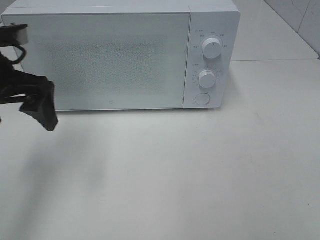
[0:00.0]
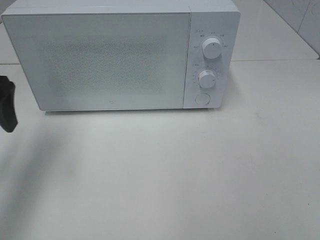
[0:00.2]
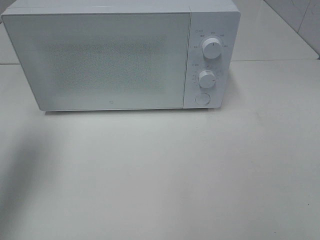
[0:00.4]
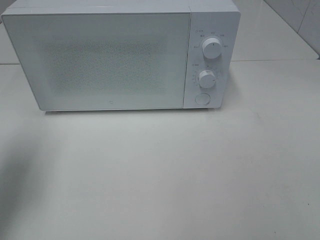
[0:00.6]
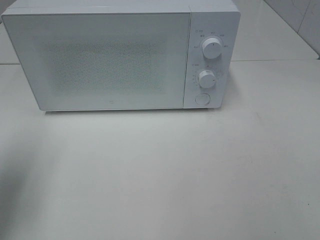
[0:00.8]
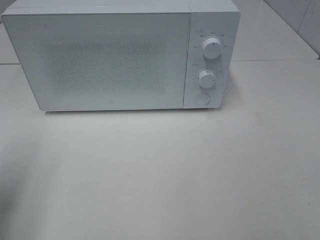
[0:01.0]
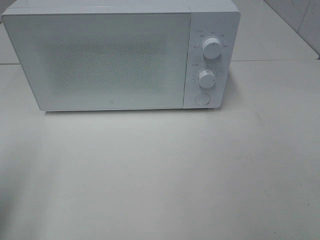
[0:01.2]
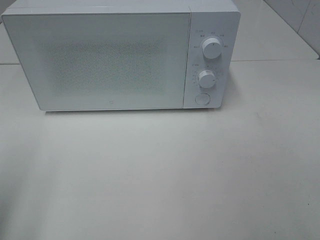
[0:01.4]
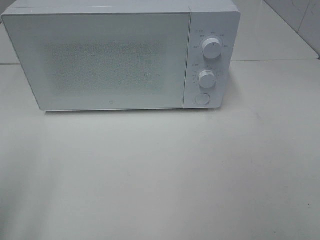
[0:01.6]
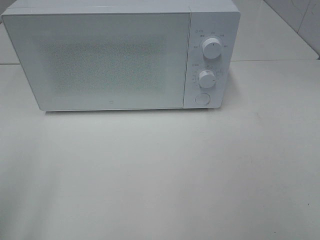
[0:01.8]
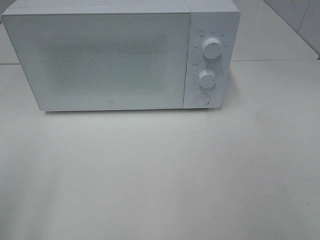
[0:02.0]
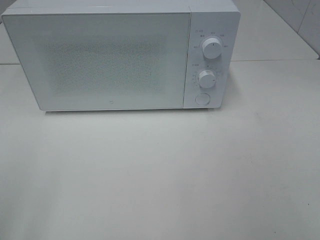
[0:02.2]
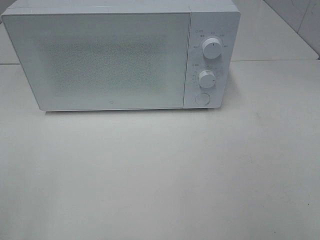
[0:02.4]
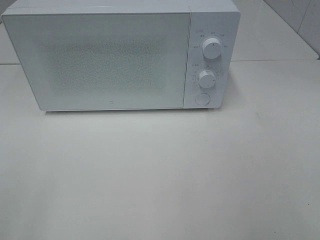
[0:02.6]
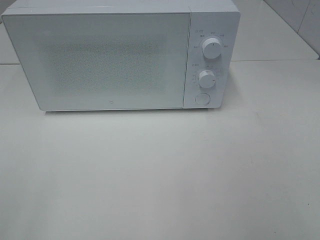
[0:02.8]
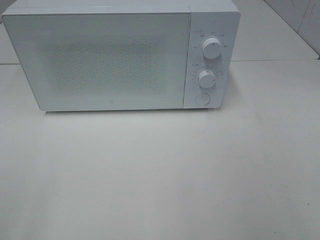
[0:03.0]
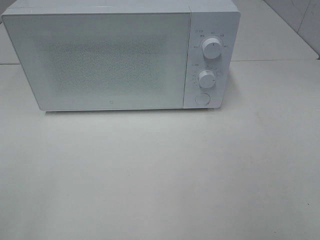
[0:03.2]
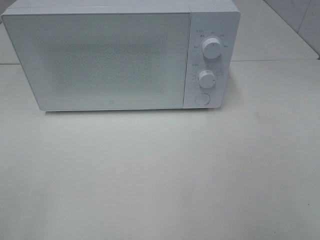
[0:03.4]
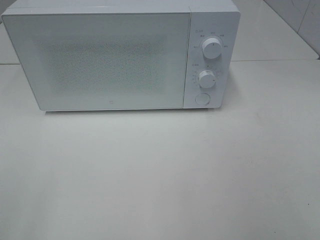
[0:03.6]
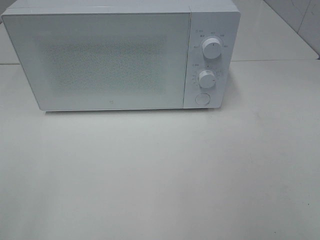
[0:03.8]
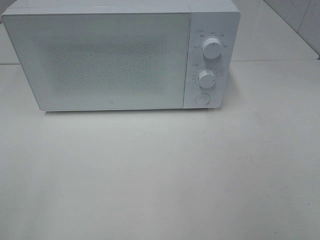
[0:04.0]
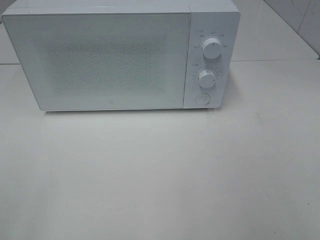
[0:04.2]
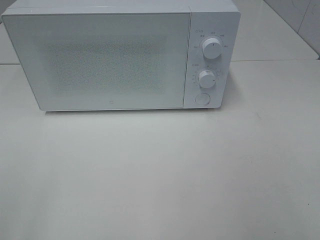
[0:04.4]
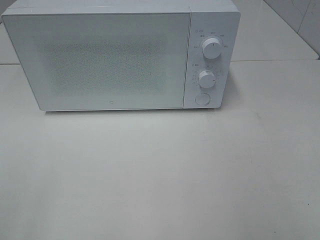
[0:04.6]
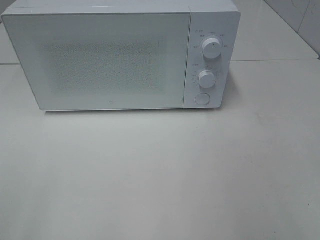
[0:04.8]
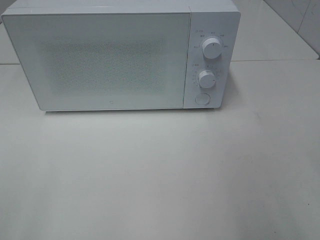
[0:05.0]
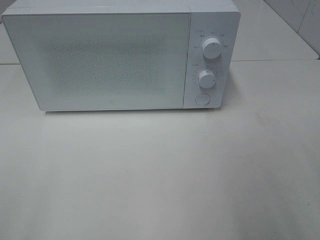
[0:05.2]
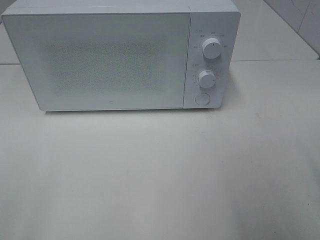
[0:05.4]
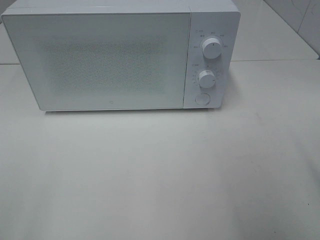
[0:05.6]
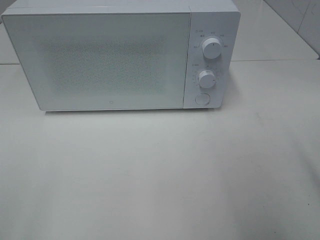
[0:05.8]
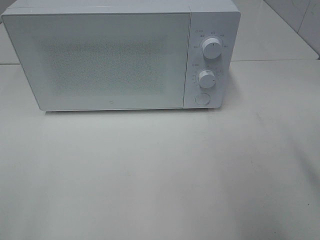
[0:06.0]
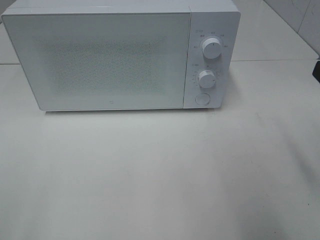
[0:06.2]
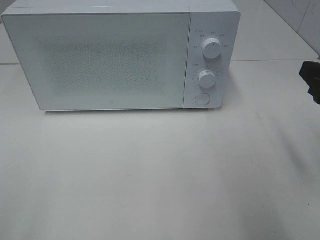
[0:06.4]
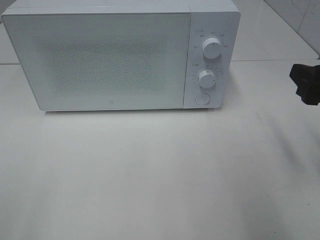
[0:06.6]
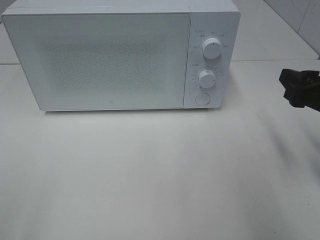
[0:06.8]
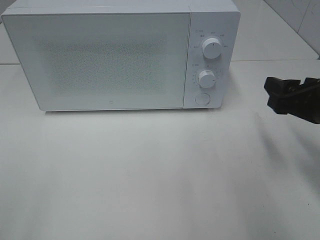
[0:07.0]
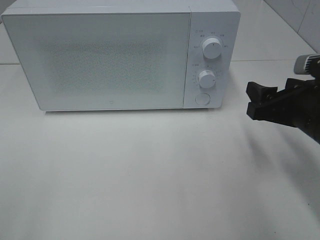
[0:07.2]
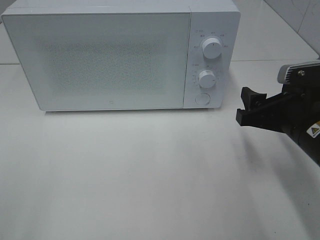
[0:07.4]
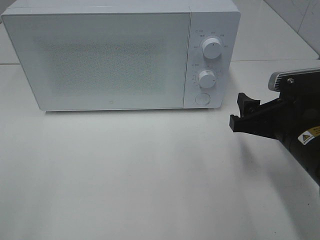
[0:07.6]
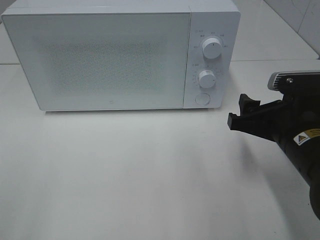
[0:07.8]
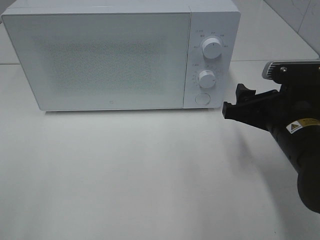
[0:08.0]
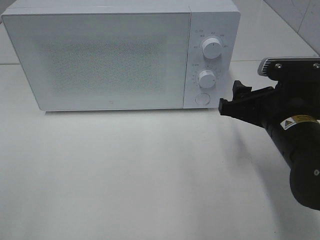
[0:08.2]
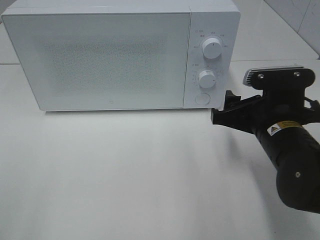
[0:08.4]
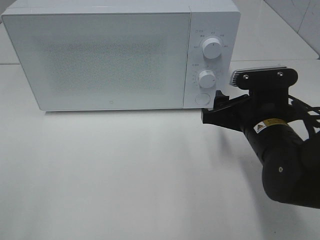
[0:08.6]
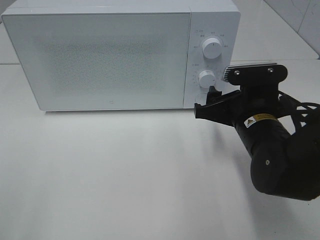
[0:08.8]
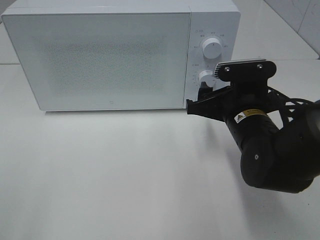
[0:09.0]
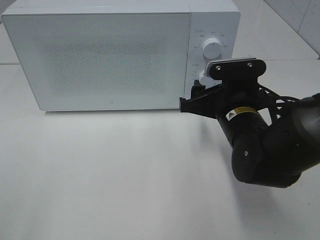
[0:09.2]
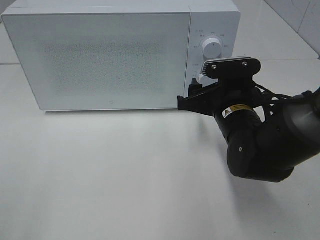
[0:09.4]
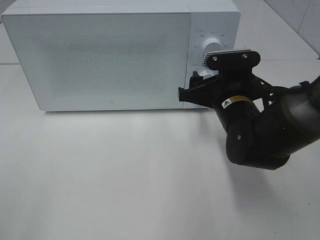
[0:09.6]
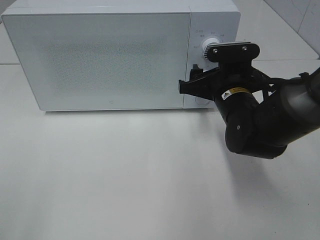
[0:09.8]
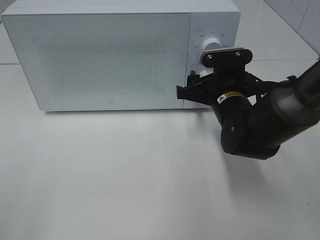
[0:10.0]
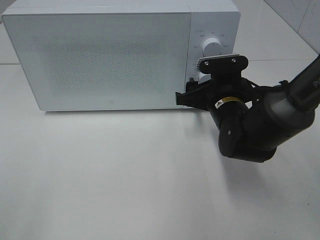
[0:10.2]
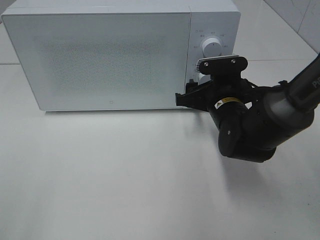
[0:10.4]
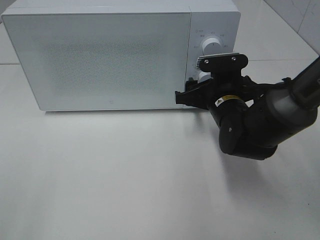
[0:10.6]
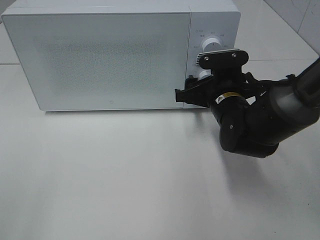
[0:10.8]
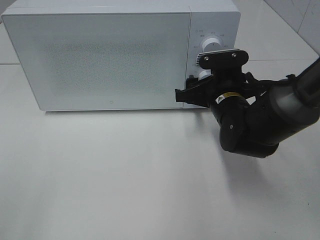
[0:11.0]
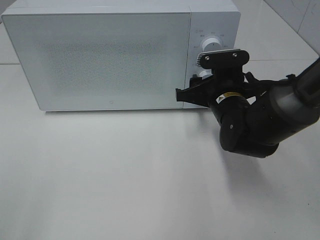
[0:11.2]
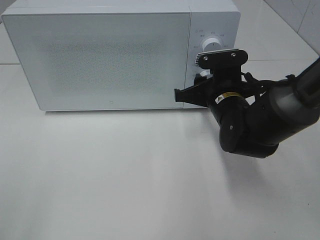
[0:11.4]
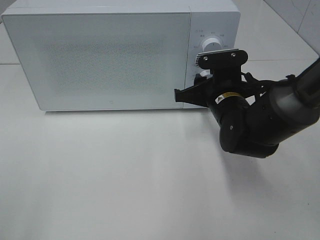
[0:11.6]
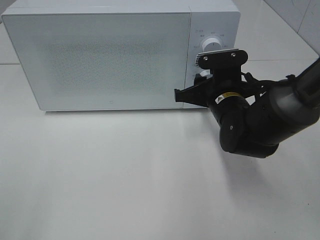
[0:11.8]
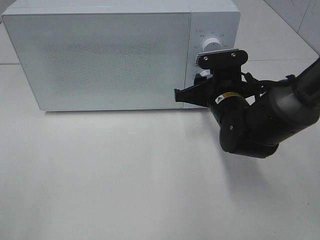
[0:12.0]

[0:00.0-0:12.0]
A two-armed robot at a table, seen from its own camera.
Task of the whole recording: Heat the burger.
0:00.0 to 0:01.6: The left gripper travels backward and to the left by some 20 cm.
0:03.0 to 0:04.4: Neither gripper changes place.
0:04.4 to 0:06.0: The right gripper goes about 15 cm forward.
0:06.0 to 0:07.6: The right gripper moves downward, to the left and forward, about 15 cm.
0:07.6 to 0:09.0: The right gripper heads to the left and forward, covering some 10 cm.
0:09.0 to 0:10.4: The right gripper heads forward, covering roughly 5 cm.
0:10.4 to 0:12.0: The right gripper closes its fingers.

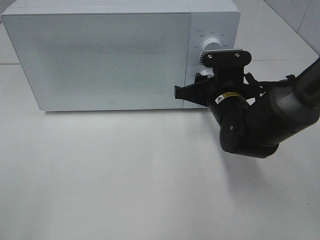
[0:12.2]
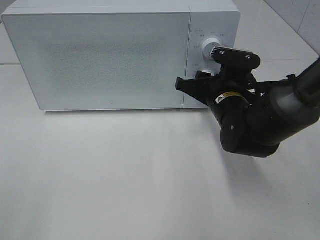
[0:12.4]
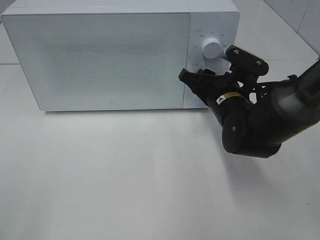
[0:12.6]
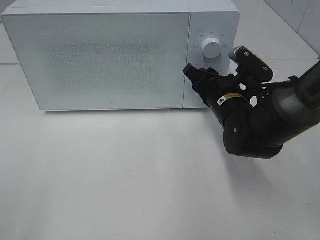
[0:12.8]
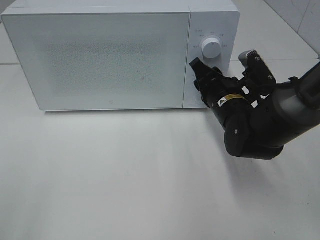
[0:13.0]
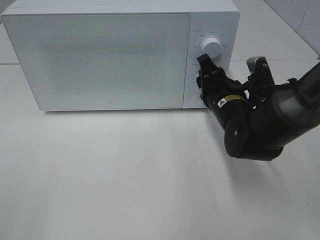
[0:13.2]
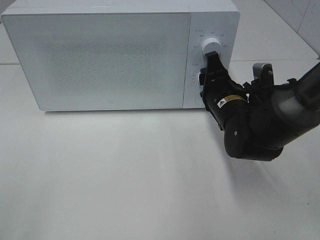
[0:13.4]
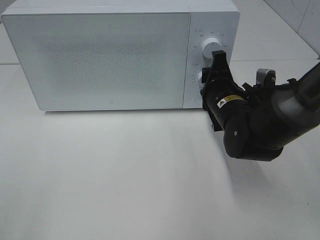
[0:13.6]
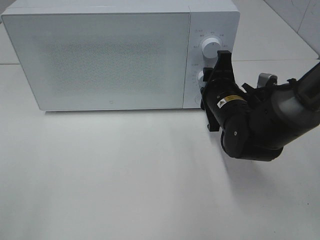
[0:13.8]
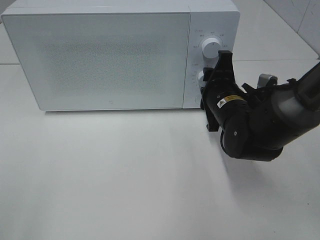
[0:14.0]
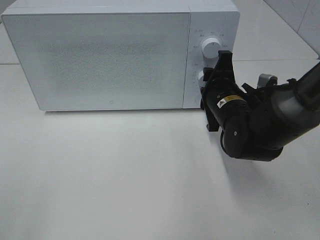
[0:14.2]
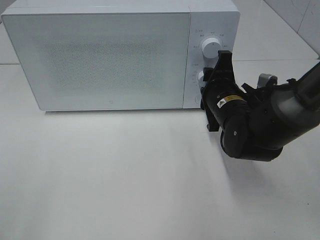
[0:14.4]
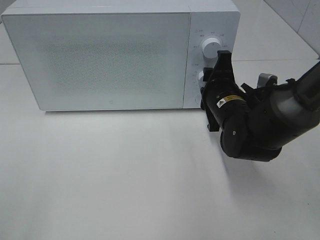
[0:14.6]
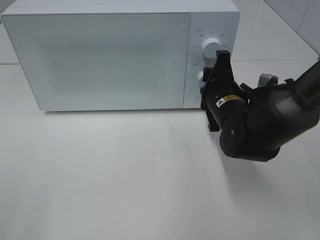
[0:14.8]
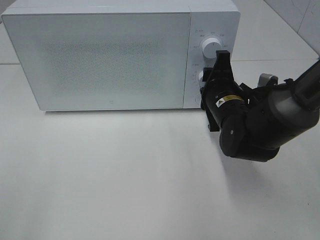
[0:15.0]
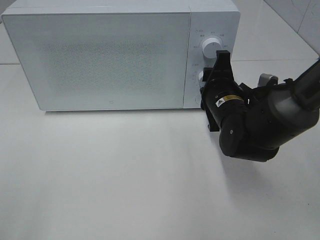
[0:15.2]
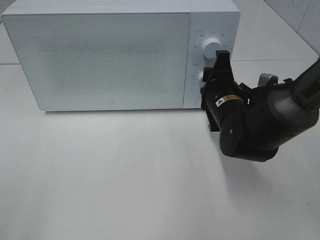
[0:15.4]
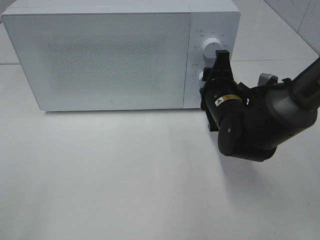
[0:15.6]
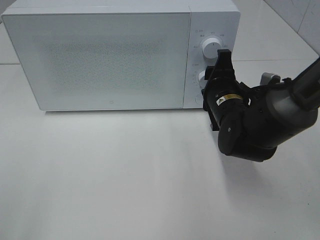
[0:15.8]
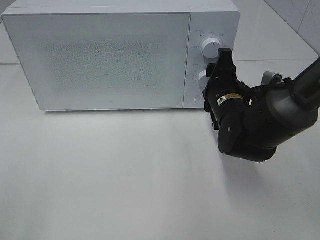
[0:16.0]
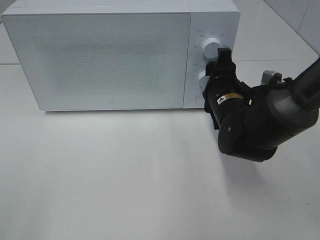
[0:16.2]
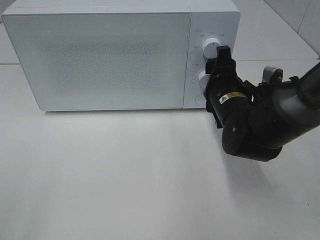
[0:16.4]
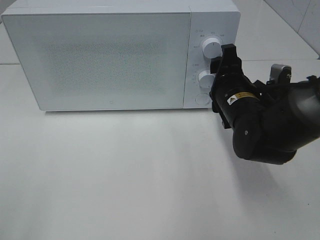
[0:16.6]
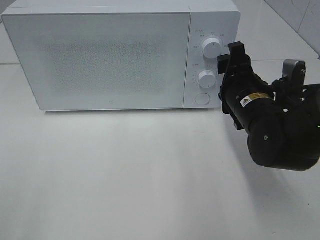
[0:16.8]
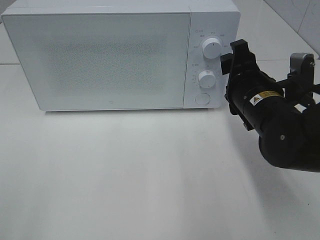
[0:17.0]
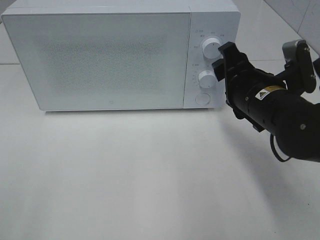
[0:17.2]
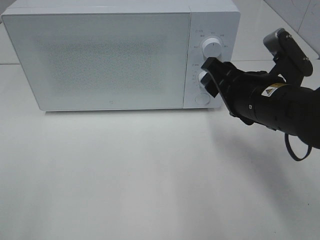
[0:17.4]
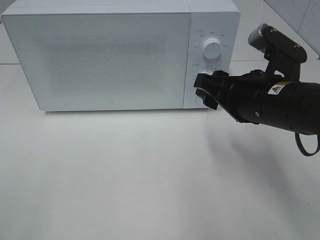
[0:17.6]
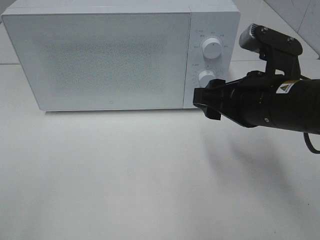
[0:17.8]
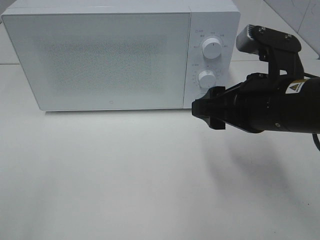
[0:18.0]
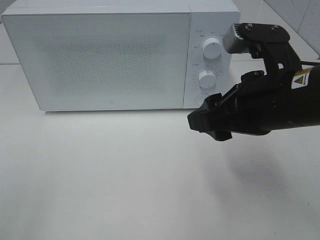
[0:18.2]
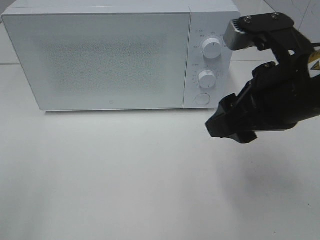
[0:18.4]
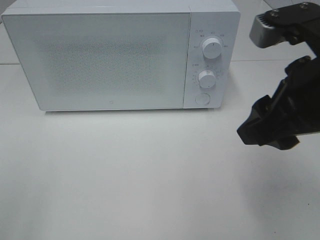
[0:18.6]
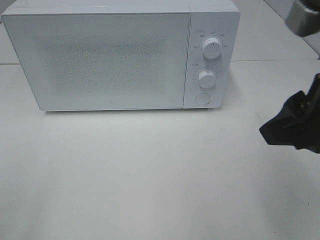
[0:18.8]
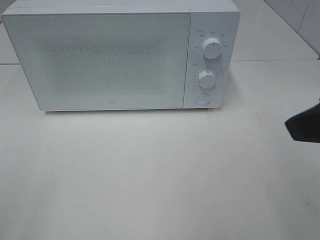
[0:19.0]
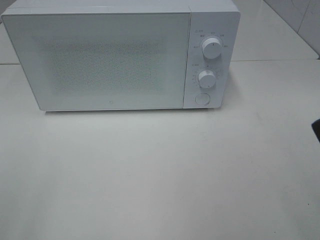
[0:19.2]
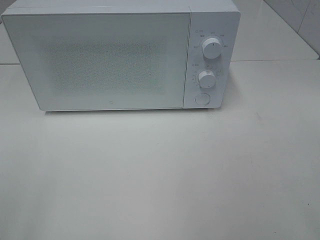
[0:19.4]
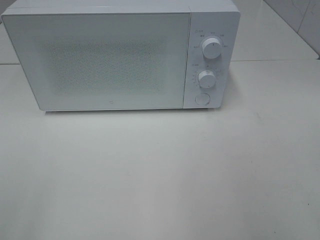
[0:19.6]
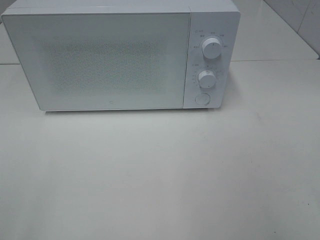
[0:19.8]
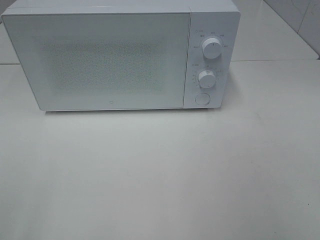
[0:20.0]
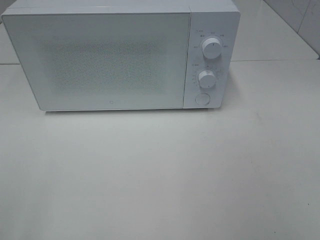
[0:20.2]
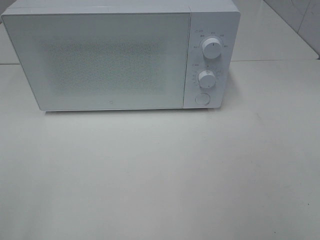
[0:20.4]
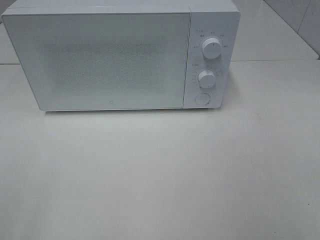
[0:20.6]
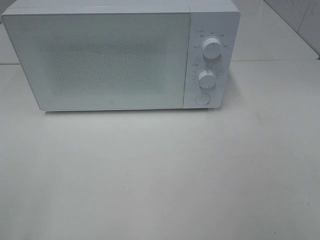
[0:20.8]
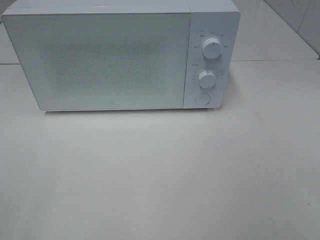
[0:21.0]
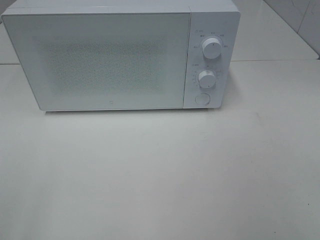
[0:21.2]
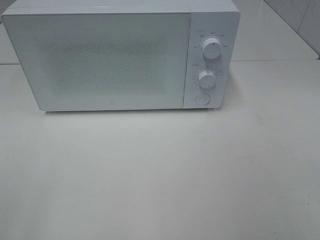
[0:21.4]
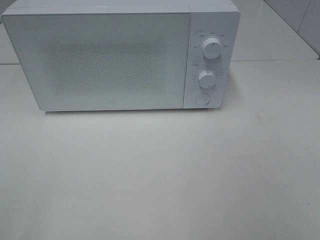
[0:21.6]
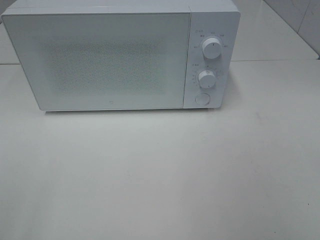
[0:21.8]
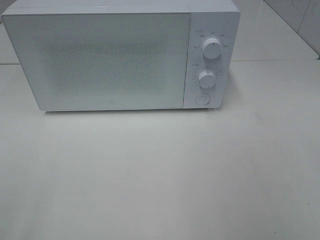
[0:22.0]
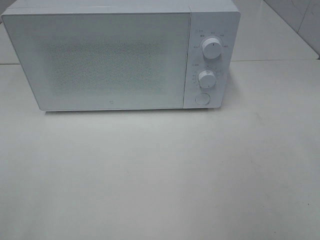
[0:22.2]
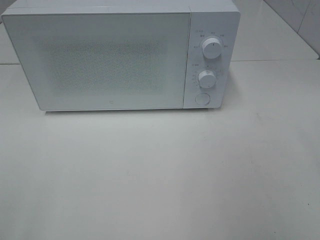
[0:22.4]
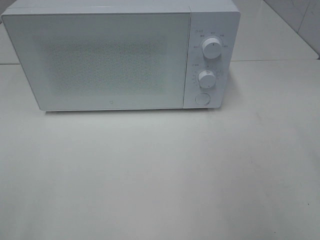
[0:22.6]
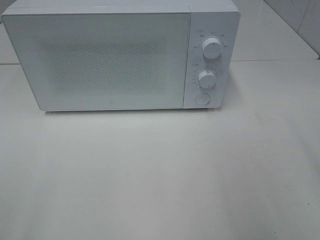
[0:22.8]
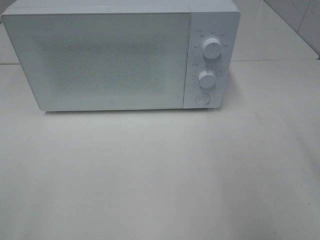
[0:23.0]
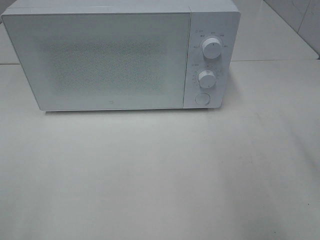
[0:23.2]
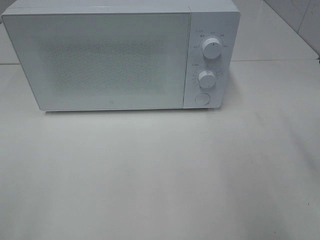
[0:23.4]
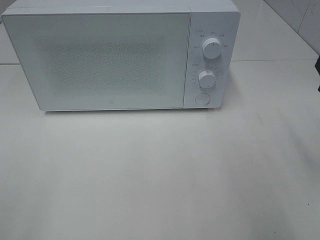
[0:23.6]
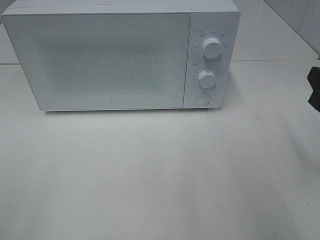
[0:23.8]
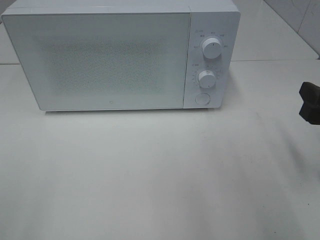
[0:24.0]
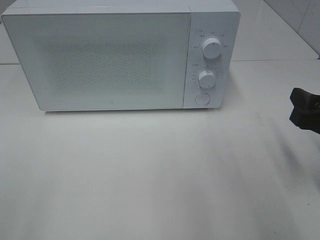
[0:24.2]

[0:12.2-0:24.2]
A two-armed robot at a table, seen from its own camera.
Task of the whole recording: Heat the burger.
Step, 0:12.2 to 0:16.0: Right hand: twist timer button.
0:13.8 to 0:15.2: The two grippers keep their place.
0:15.2 to 0:16.6: The grippers move only a little.
0:16.6 to 0:18.2: The right gripper goes roughly 15 cm upward and backward.
0:18.2 to 0:19.8: The right gripper heads backward, to the right and upward, covering roughly 20 cm.
0:22.6 to 0:24.2: The right gripper heads downward and forward, covering roughly 15 cm.
